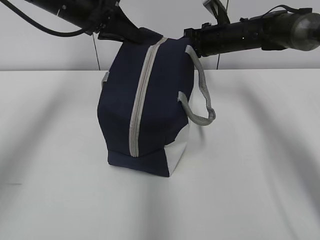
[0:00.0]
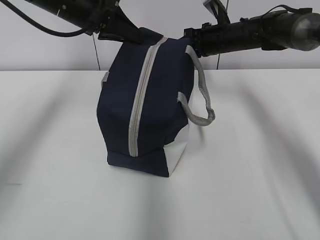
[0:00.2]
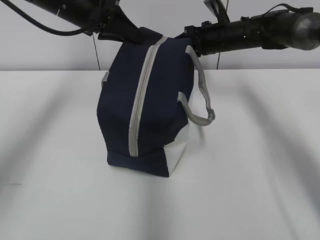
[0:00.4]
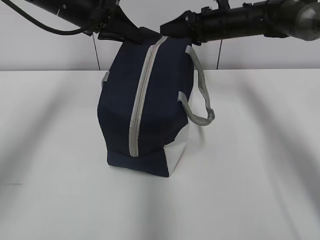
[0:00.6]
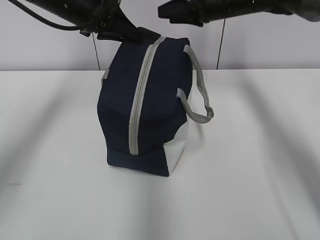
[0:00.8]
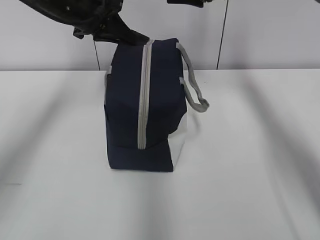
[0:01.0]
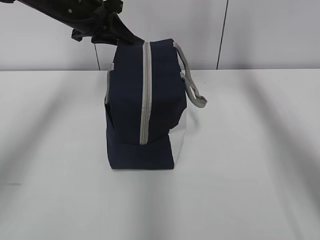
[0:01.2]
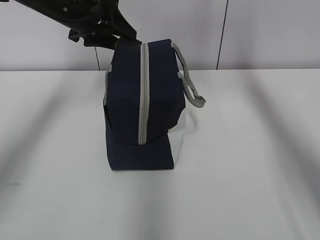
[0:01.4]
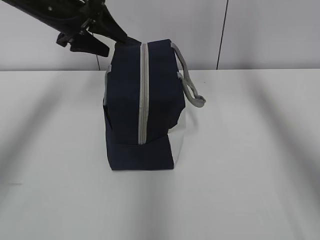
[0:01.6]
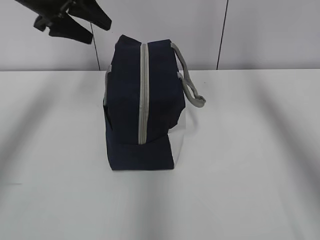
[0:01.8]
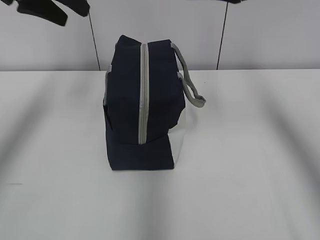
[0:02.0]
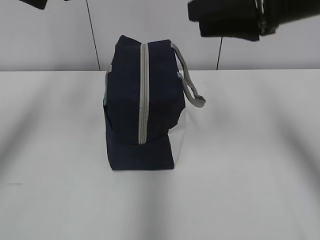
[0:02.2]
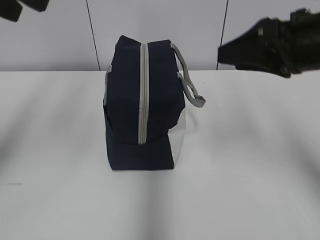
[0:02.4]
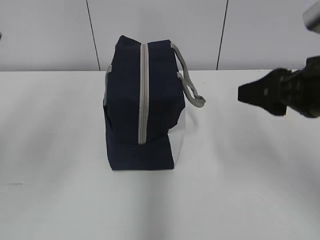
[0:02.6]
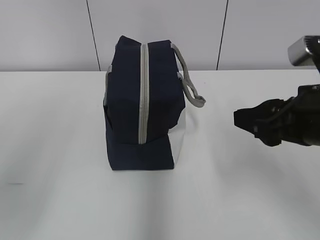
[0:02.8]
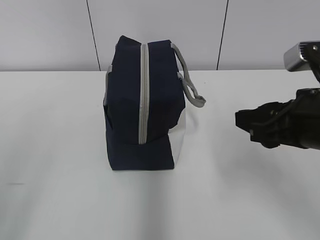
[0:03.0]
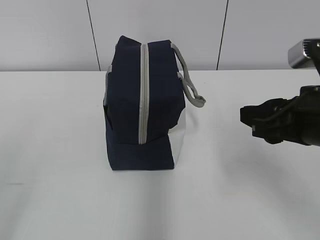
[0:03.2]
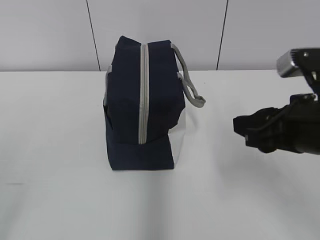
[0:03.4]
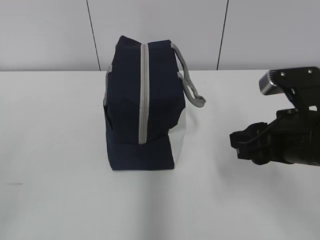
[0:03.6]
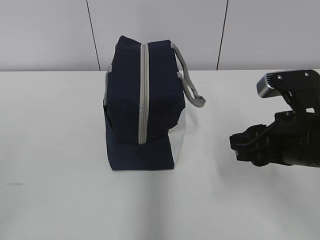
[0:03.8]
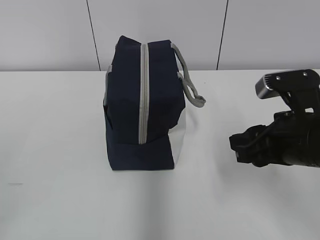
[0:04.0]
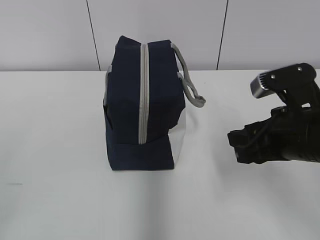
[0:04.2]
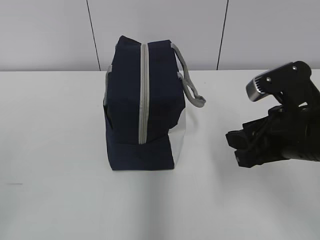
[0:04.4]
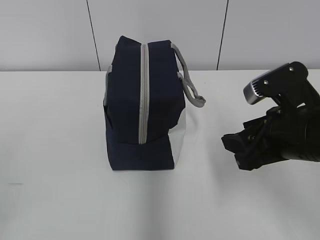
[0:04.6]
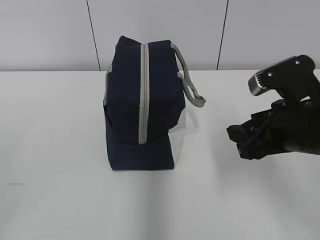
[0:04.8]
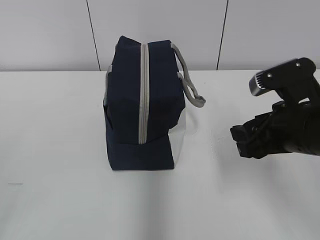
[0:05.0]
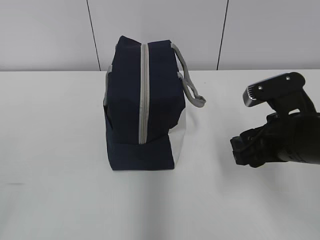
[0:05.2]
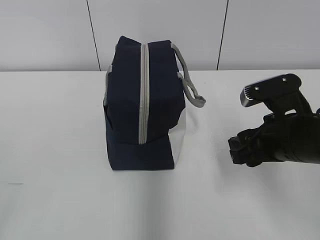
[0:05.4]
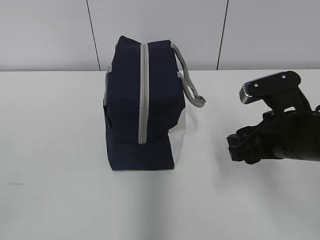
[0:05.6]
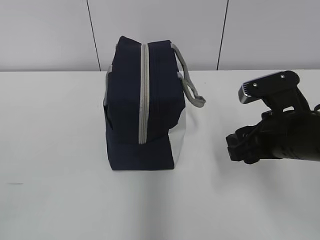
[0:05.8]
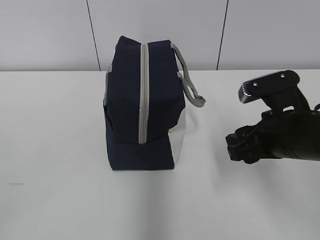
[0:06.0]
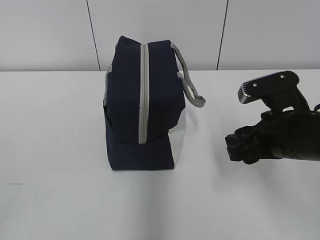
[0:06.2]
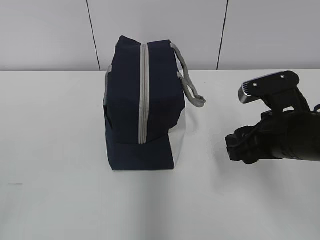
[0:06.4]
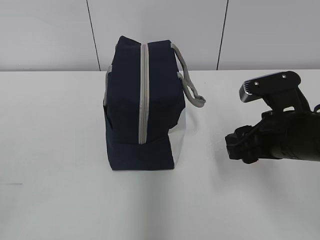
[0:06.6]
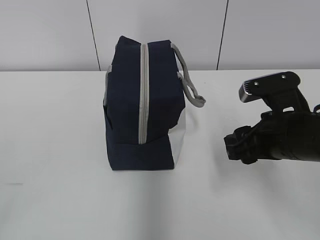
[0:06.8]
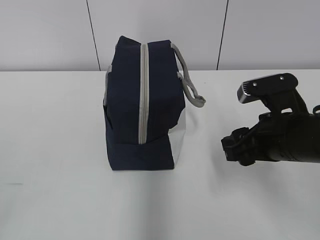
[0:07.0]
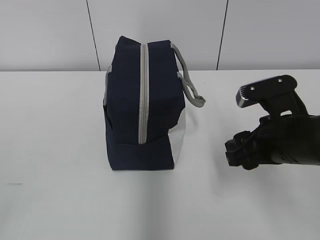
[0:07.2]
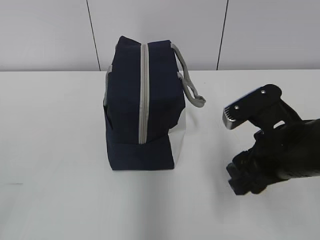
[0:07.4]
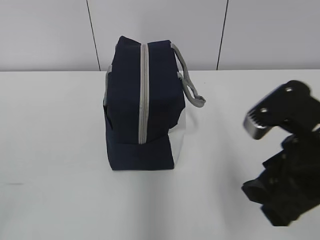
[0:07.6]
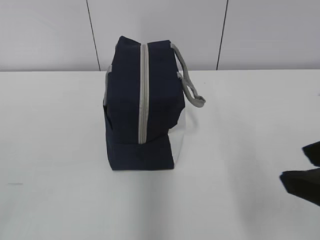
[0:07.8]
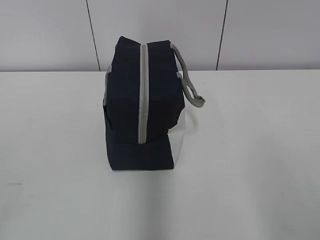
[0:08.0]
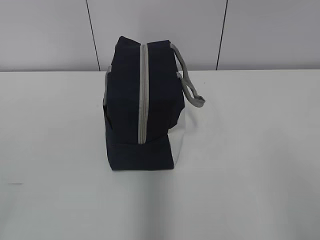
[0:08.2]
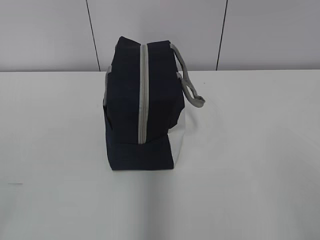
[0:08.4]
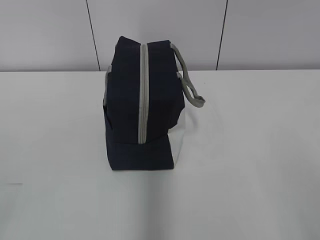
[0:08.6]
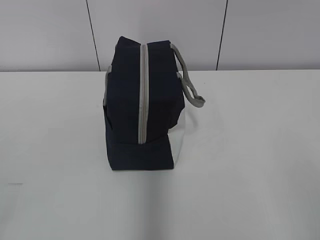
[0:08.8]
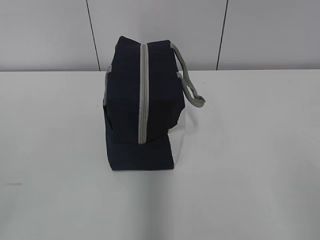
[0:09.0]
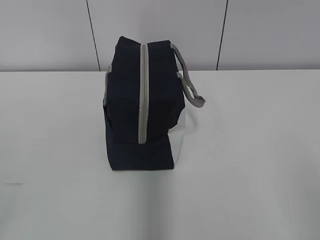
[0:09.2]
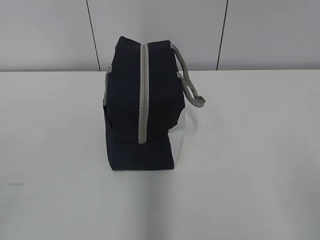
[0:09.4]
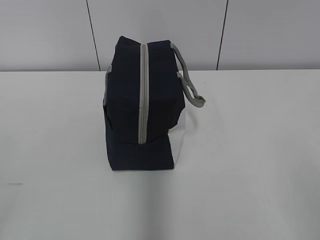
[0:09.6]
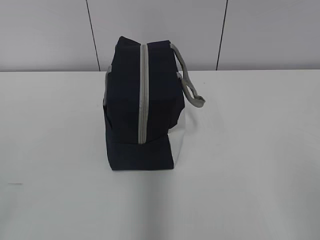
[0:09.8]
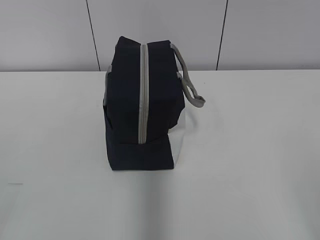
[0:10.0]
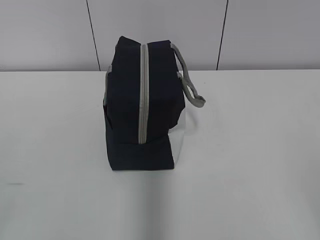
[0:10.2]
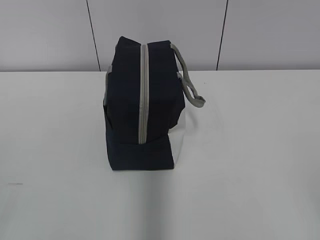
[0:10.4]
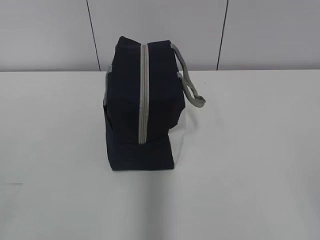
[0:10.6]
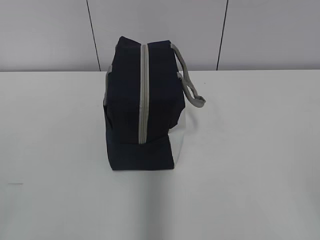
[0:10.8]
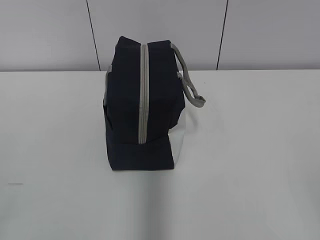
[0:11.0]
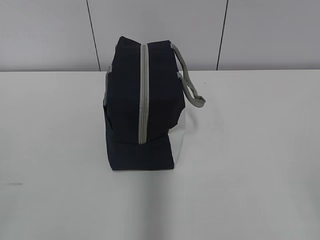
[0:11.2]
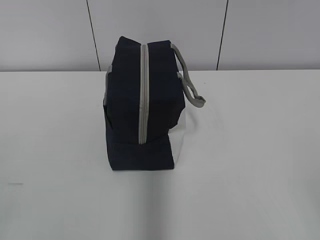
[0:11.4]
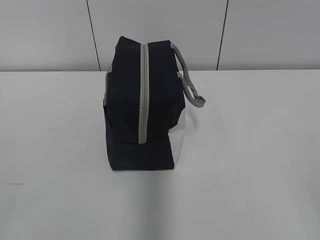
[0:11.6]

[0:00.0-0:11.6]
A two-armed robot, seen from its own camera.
0:00.0 to 0:01.4: The left gripper opens up. Meanwhile the right gripper goes some 20 cm upward, and opens its fingers.
0:01.4 to 0:02.8: The right gripper moves backward and downward, some 30 cm. Meanwhile the left gripper moves backward, approximately 35 cm.
0:05.8 to 0:07.2: The grippers make only small movements.
0:07.2 to 0:08.8: The right gripper heads backward, to the right and upward, covering some 30 cm.

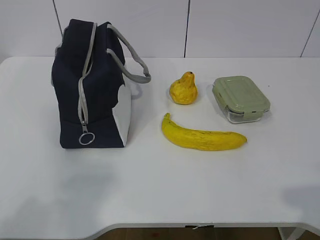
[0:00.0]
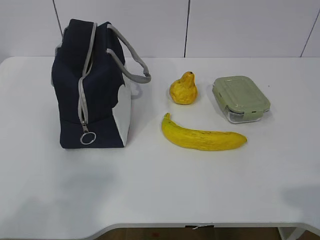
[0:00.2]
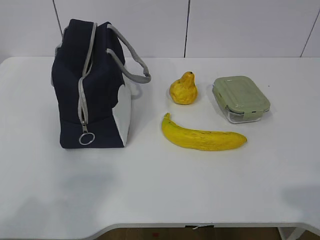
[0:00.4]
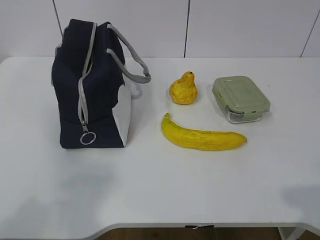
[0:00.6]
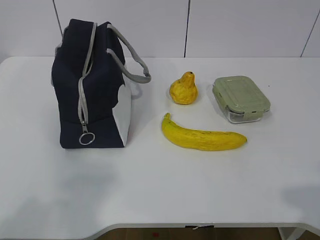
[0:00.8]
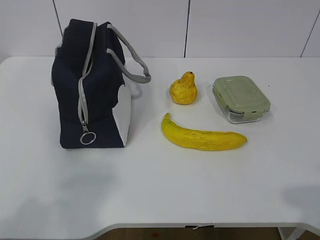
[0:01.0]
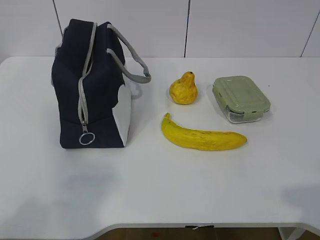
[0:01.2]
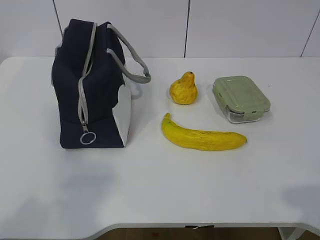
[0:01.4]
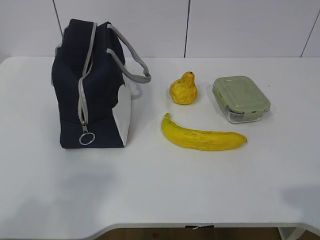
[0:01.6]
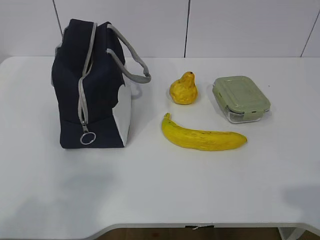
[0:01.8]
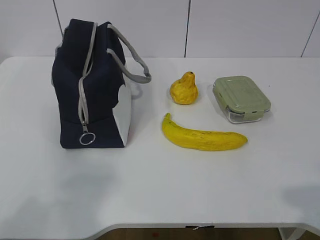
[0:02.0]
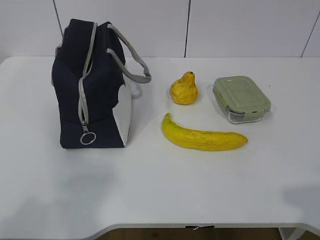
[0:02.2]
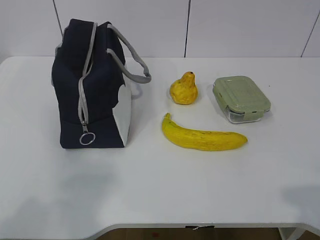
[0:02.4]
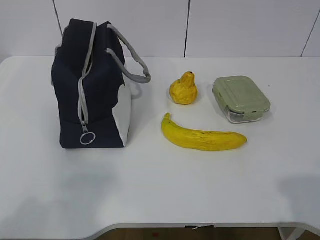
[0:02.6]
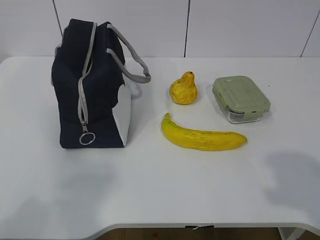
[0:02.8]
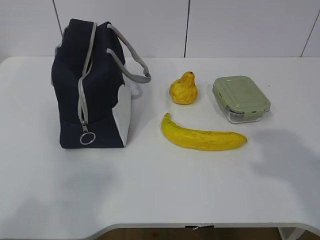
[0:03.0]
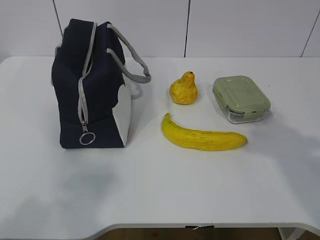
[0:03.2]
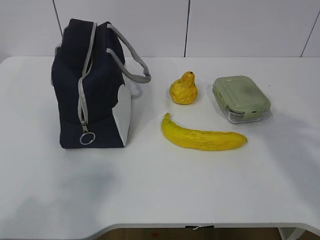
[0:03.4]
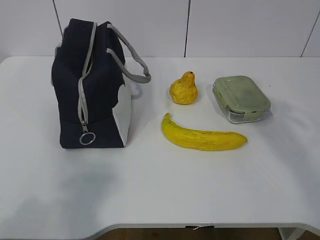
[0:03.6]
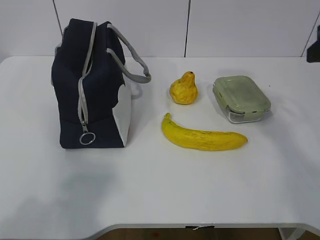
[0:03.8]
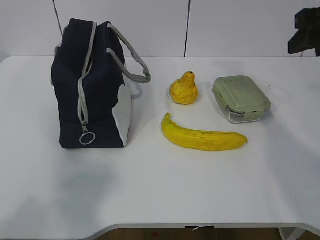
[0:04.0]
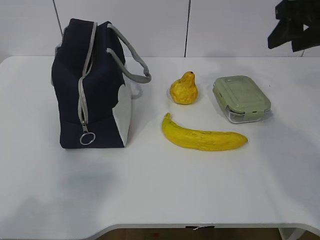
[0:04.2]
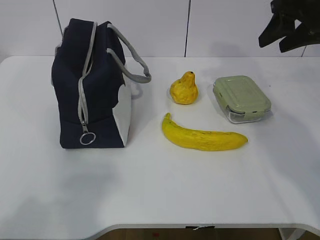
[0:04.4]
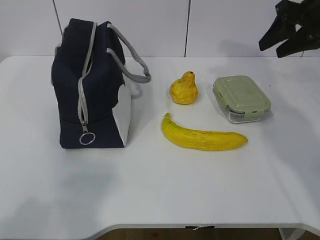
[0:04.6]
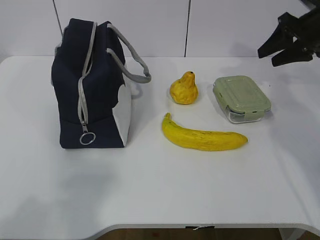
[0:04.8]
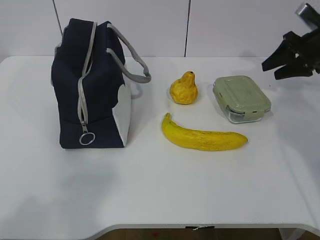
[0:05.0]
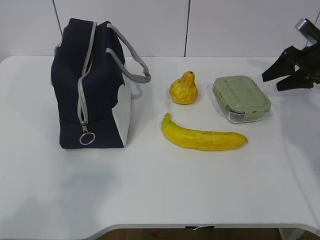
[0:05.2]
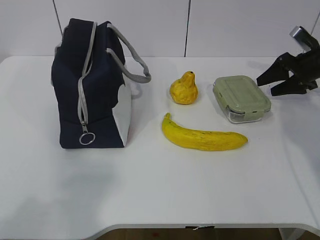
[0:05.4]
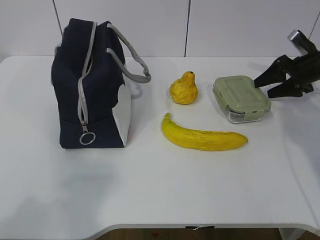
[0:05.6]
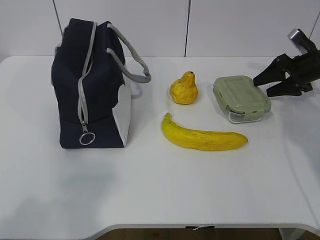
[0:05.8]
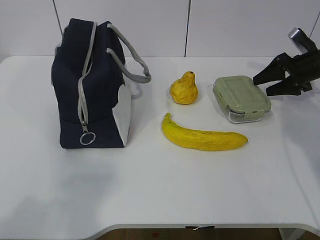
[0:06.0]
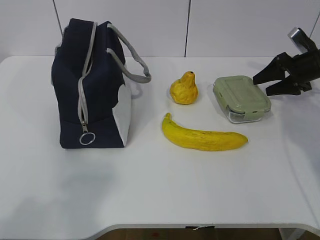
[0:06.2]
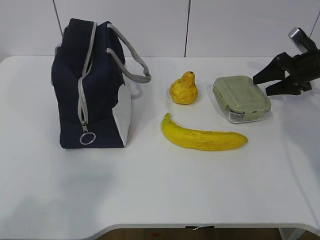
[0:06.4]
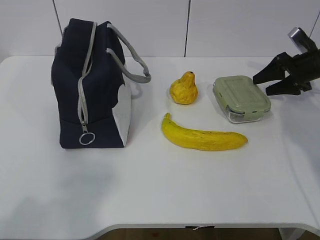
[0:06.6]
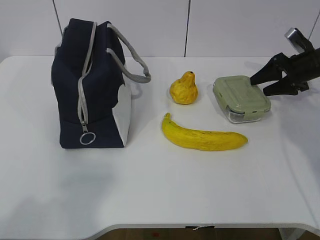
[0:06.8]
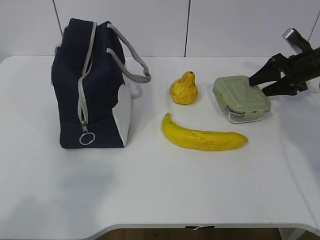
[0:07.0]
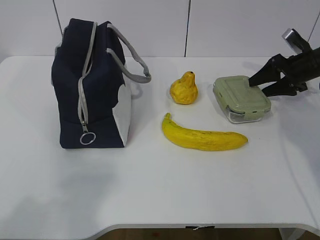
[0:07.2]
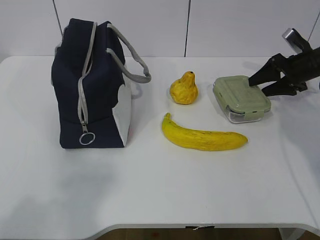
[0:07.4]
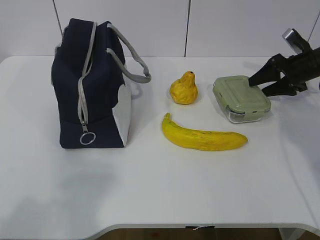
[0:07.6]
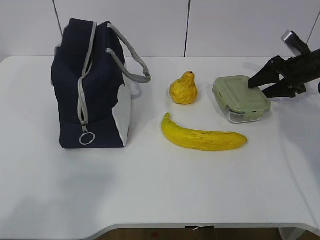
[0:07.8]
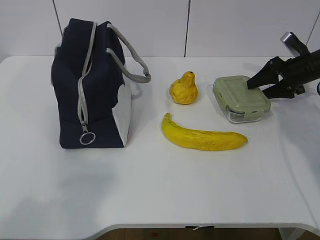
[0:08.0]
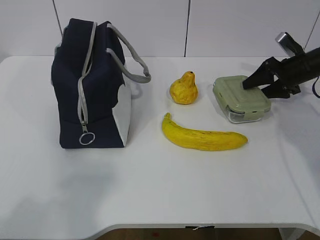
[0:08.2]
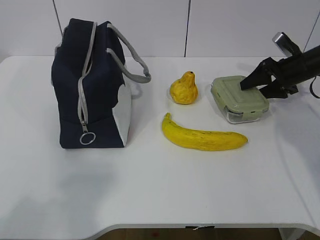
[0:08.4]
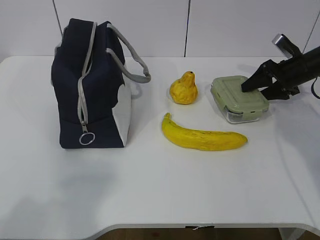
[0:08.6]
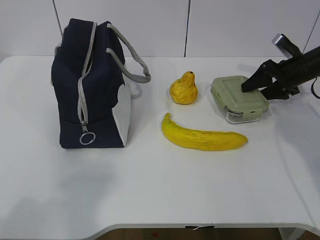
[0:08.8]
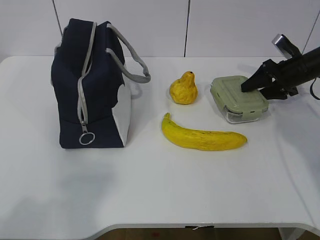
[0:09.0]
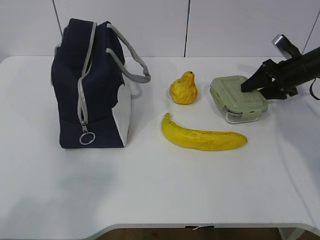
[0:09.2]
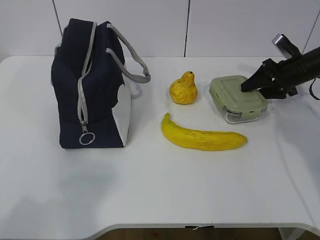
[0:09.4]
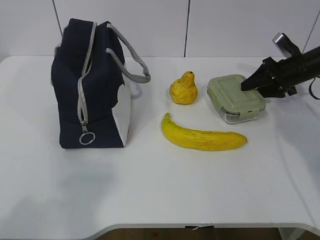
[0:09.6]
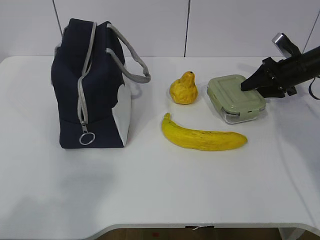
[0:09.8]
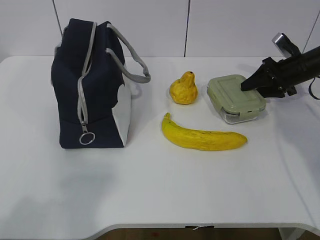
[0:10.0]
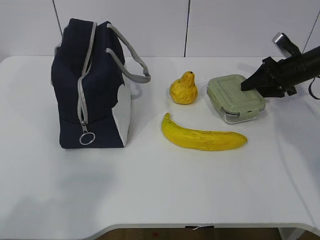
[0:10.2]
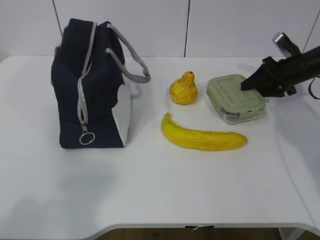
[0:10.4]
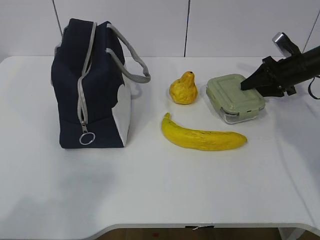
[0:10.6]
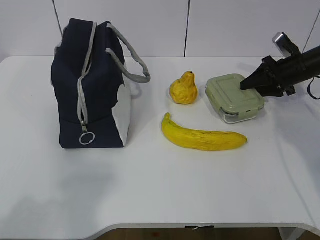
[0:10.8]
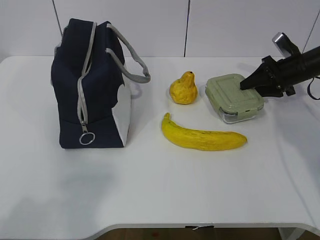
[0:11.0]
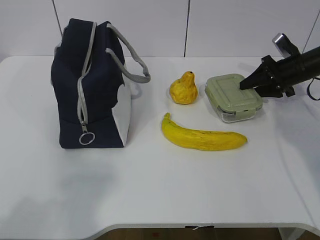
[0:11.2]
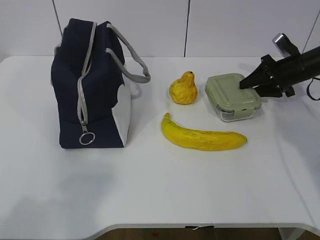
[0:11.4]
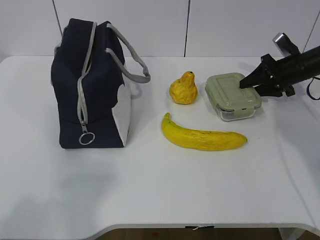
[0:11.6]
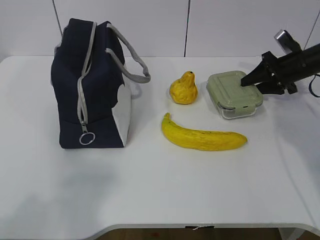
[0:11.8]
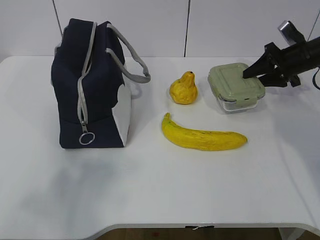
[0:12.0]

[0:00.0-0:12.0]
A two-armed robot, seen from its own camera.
Step, 0:00.0 to 0:09.8: Grasp the box with the right gripper.
0:03.0 to 0:04.4: The right gripper moves forward, roughly 30 cm.
0:04.4 to 0:06.0: The right gripper travels downward, to the right and forward by about 20 cm.
0:06.0 to 0:07.6: Both grippers stay about where they are.
0:07.6 to 0:09.0: There are only small adjustments of the grippers.
0:09.0 to 0:10.4: The two grippers keep their place.
0:10.4 to 0:12.0: The grippers make only small movements.
